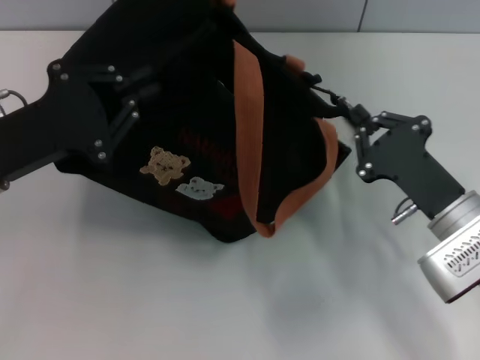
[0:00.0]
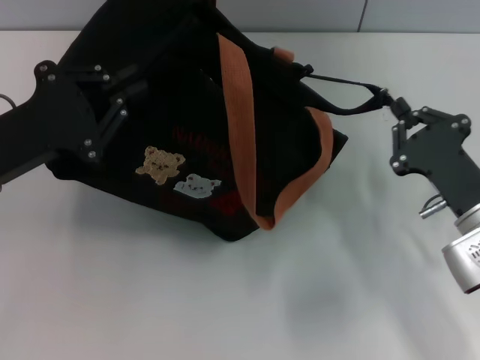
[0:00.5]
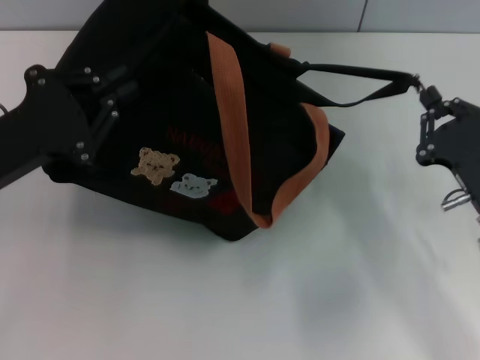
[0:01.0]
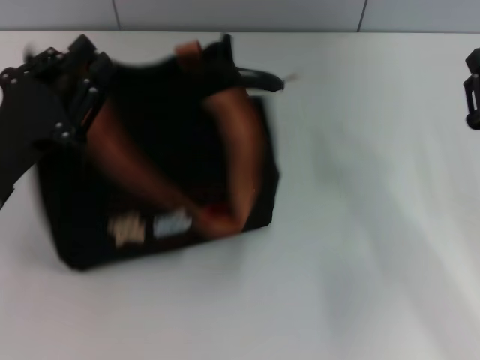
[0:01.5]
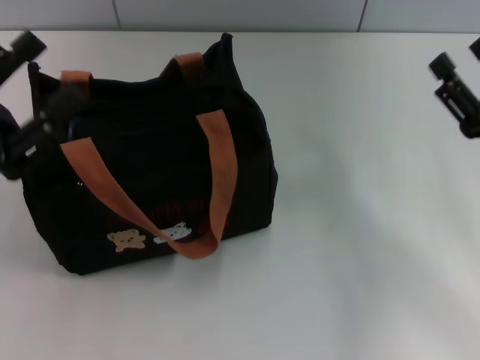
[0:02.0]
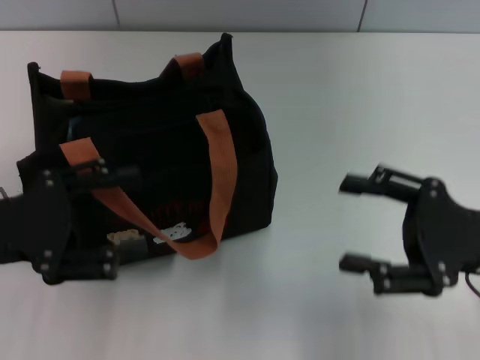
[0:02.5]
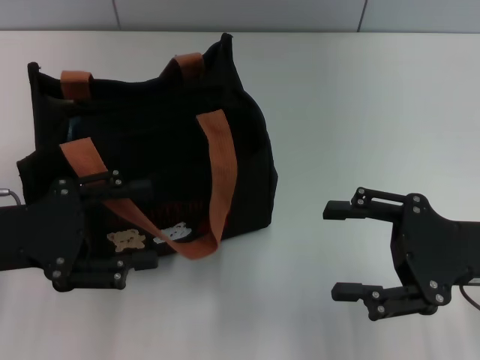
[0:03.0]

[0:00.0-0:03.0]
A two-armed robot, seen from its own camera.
0:00.0 to 0:01.5: The right gripper heads to the right, covering roughly 5 cm.
0:01.5 to 0:03.0: The left gripper opens, while the right gripper ends up roughly 5 cm from where it was, and opens.

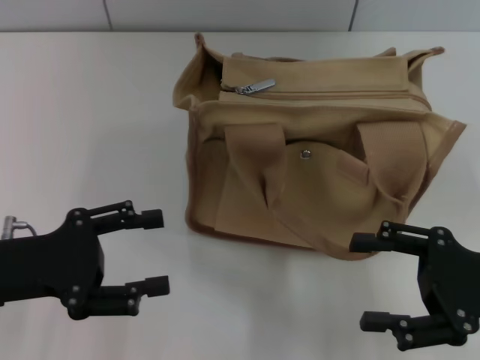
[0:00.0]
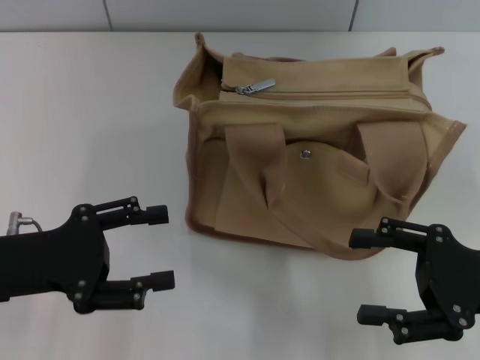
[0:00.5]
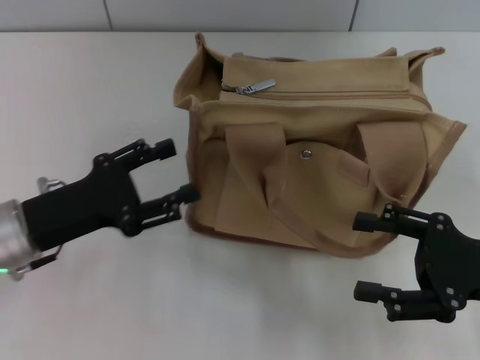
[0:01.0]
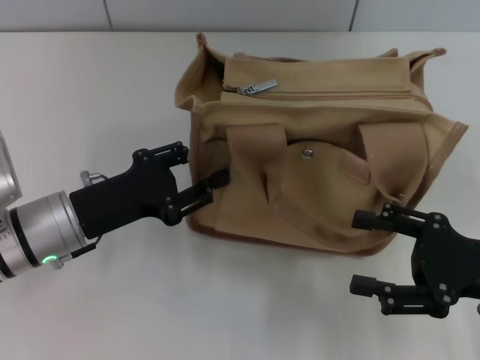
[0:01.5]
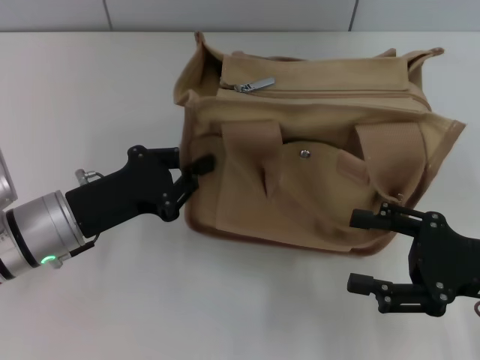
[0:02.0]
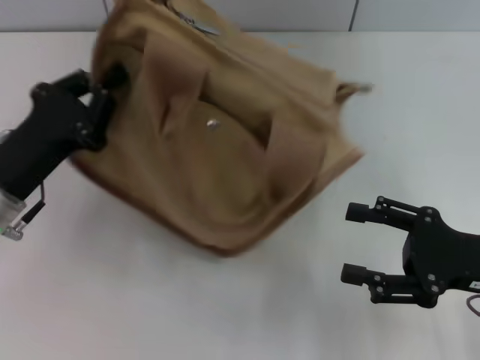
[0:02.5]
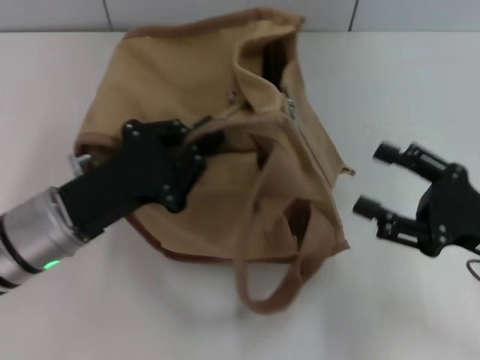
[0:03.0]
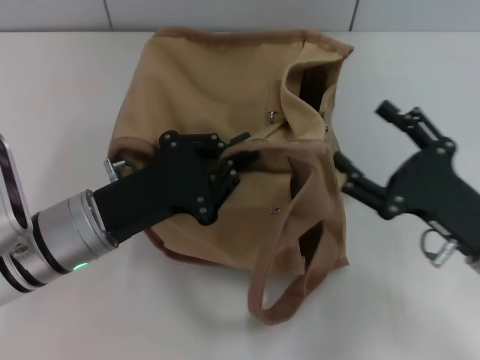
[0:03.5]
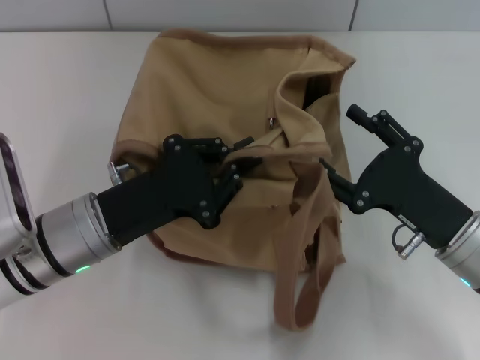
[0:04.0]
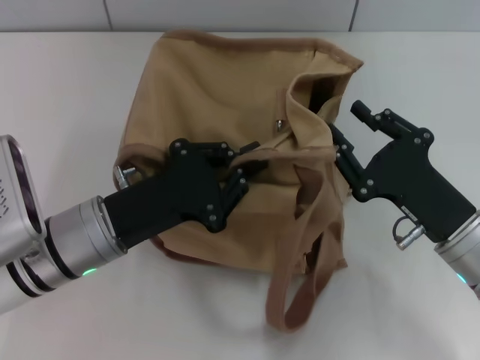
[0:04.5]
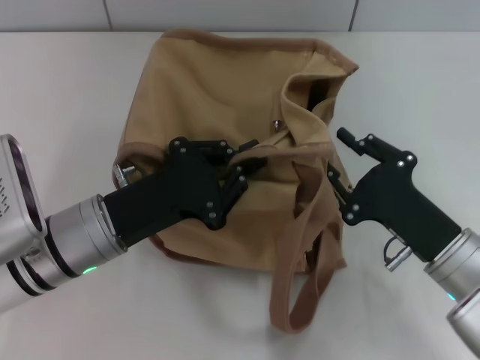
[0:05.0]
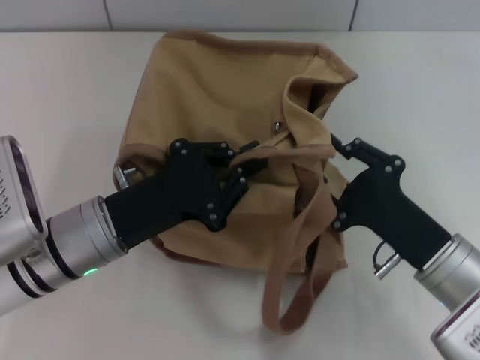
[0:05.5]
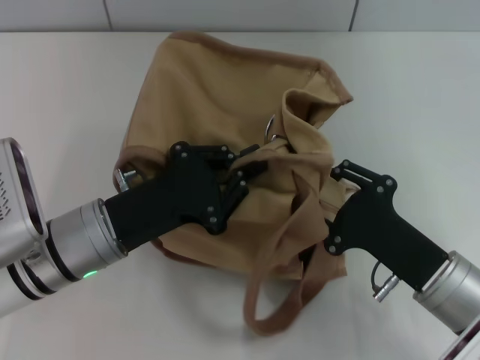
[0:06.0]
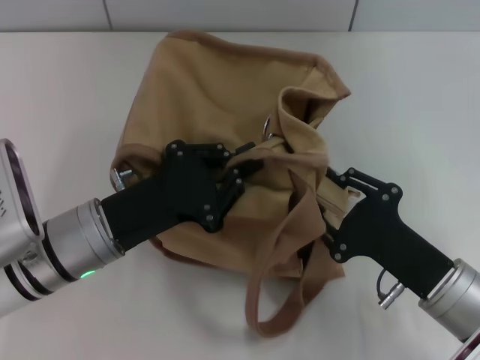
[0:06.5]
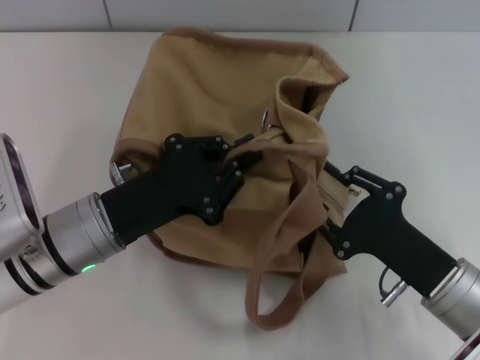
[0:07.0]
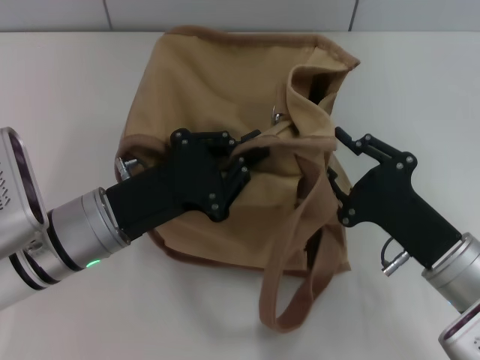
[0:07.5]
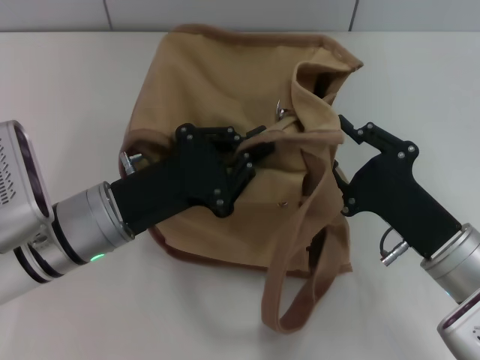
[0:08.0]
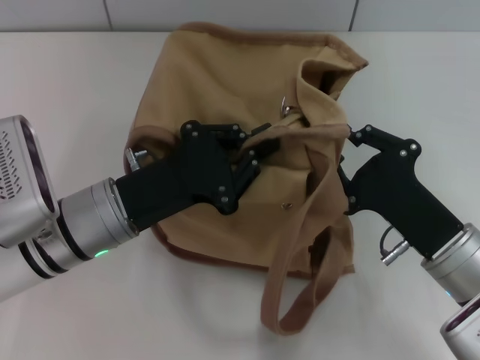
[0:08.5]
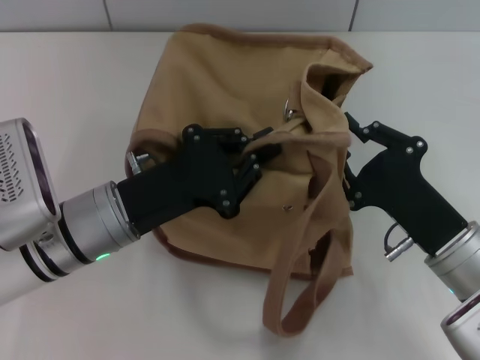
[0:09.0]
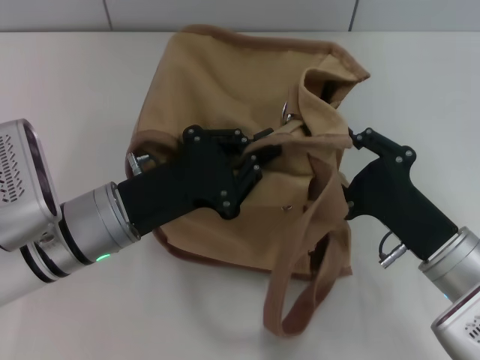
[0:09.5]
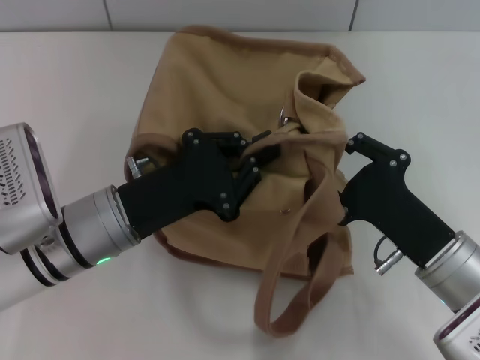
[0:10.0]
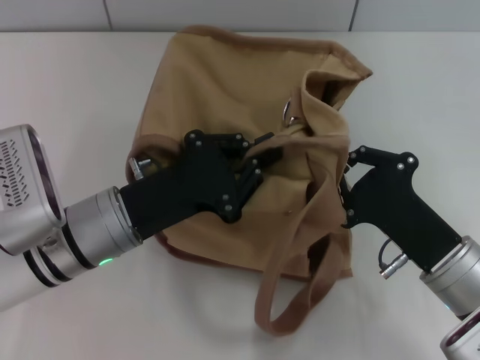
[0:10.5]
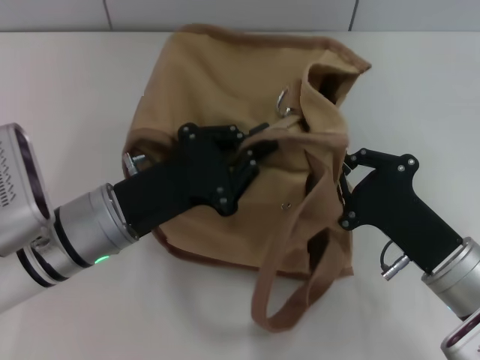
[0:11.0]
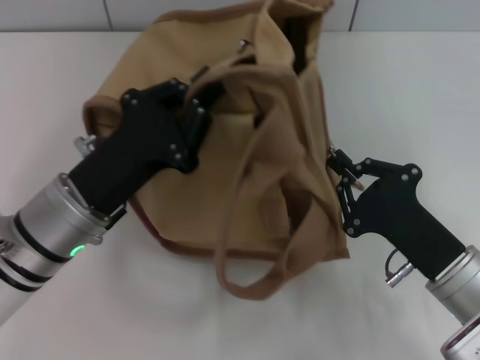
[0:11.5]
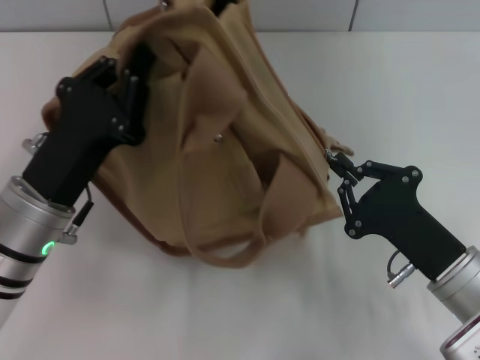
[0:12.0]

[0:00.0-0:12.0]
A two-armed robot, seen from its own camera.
0:00.0 to 0:02.0: The left gripper goes roughly 5 cm to the right, and closes up.
0:02.0 to 0:04.0: The right gripper shifts approximately 5 cm to the left.
0:04.0 to 0:06.0: The right gripper closes up.
0:08.0 to 0:10.0: Neither gripper changes place.
0:10.0 to 0:12.0: The right gripper closes its fingers.

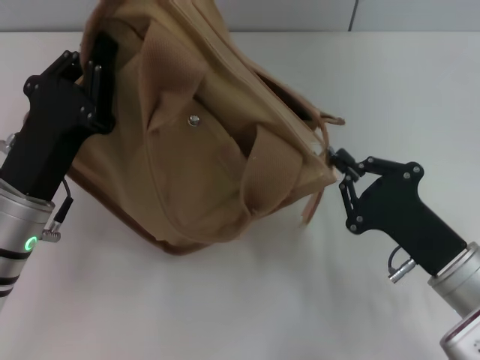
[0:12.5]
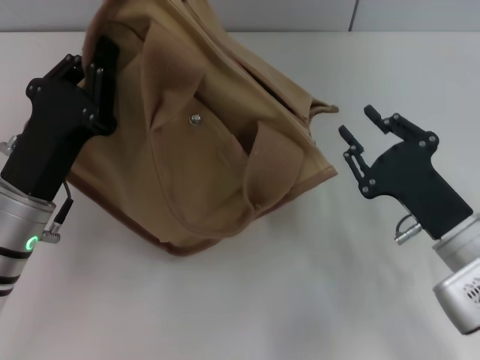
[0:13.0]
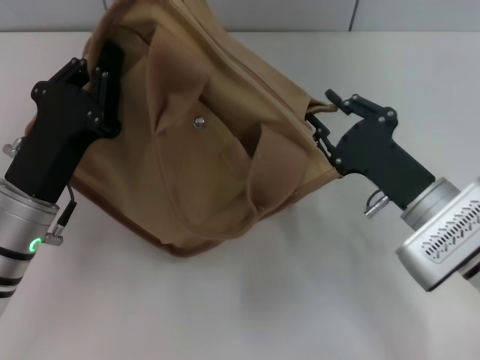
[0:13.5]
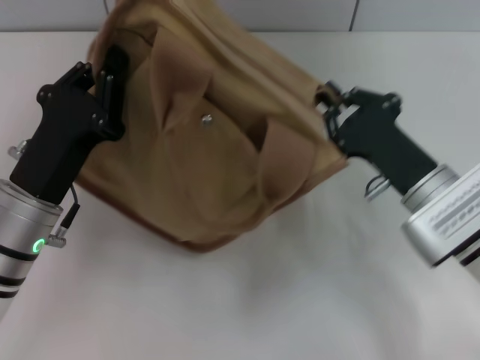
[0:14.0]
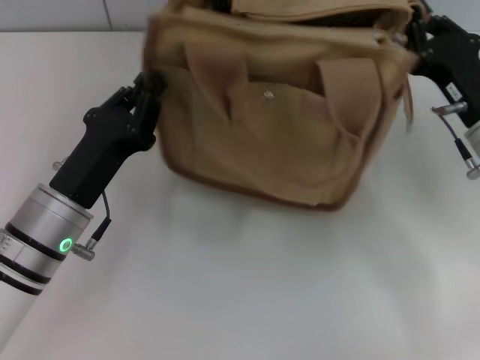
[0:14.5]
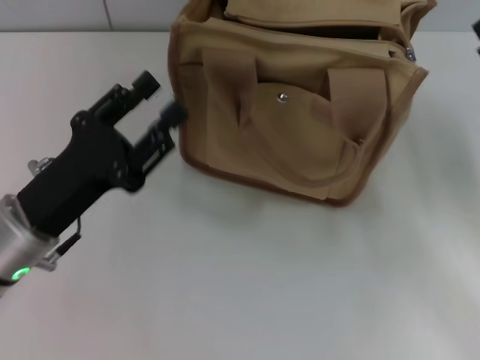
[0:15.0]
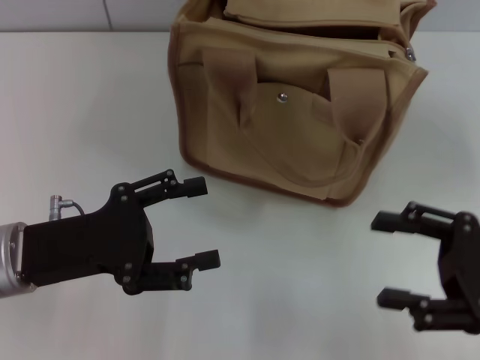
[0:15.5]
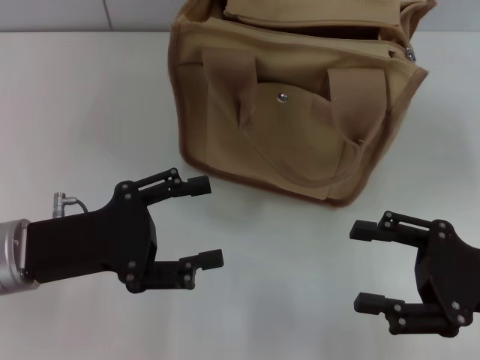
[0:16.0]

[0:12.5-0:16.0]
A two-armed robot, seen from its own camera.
Step, 0:13.0 to 0:14.5: Grab the bag with your left hand.
0:12.5 to 0:14.5: The right gripper travels forward by about 10 cm, and opens, then closes once more.
0:14.5 to 0:16.0: The right gripper goes some 10 cm backward, and opens, while the left gripper moves roughly 5 cm, and opens up.
